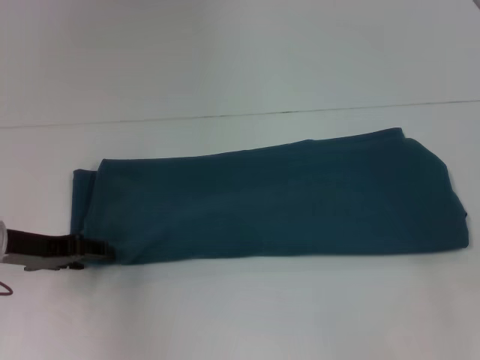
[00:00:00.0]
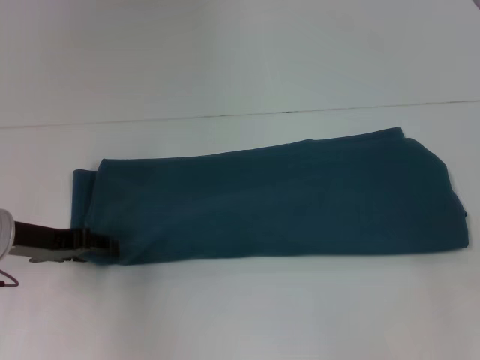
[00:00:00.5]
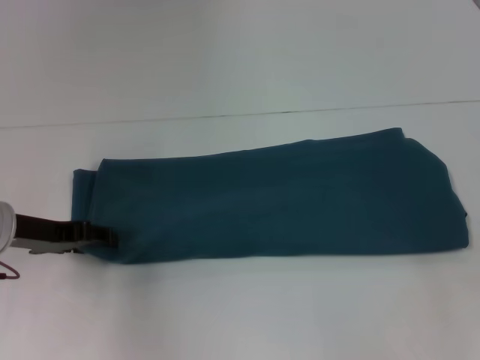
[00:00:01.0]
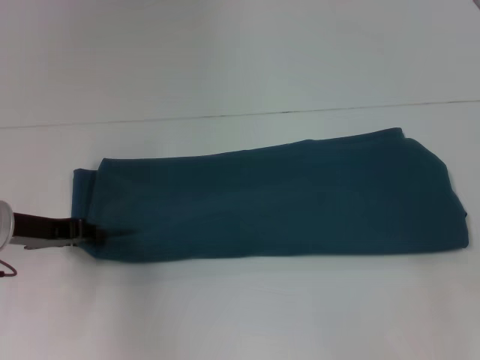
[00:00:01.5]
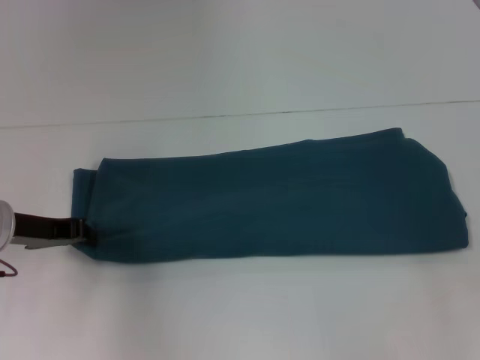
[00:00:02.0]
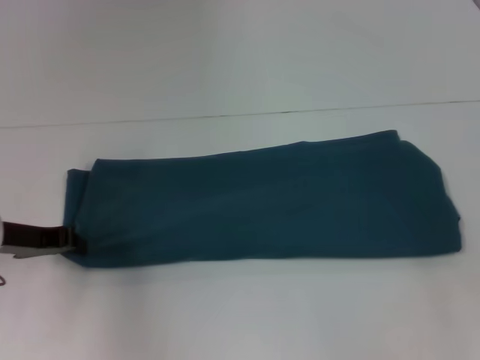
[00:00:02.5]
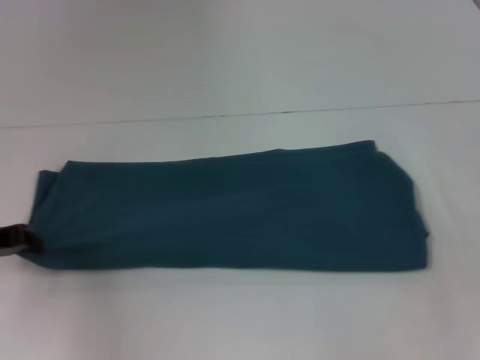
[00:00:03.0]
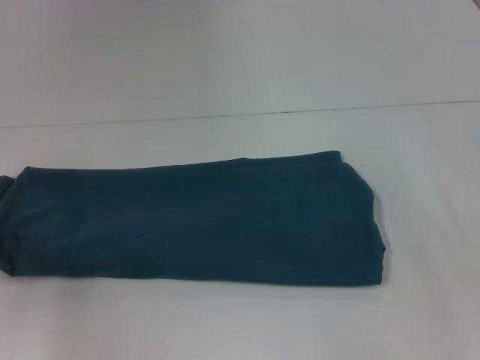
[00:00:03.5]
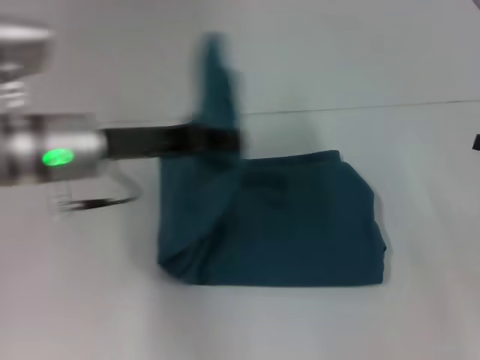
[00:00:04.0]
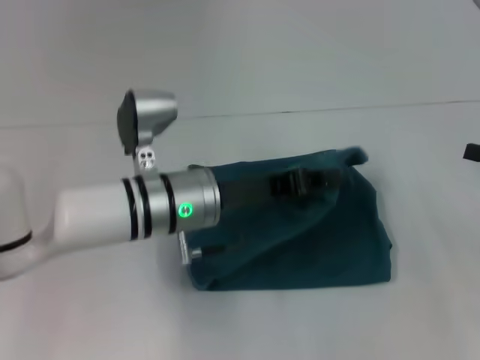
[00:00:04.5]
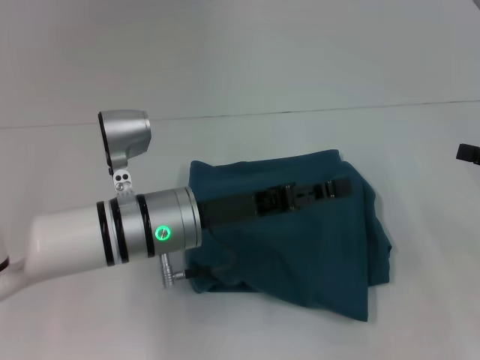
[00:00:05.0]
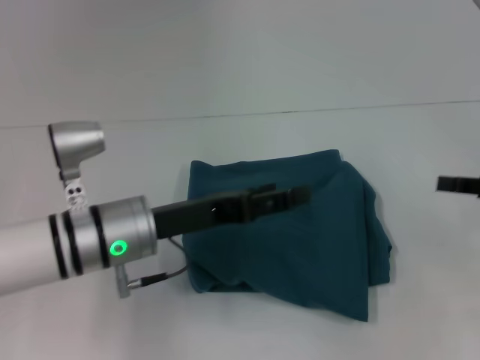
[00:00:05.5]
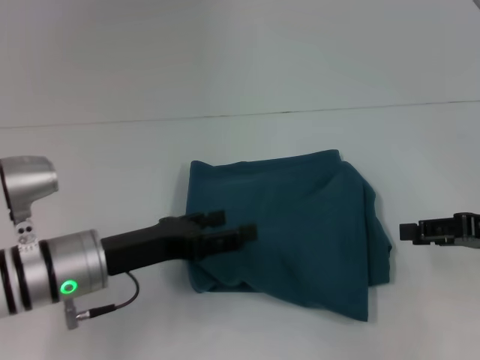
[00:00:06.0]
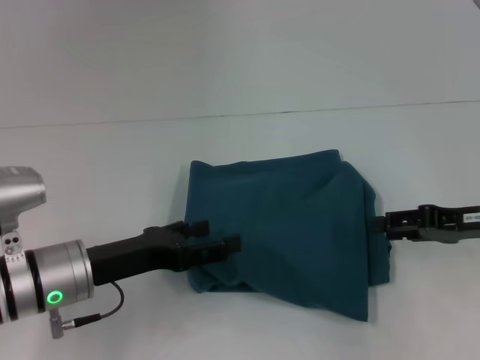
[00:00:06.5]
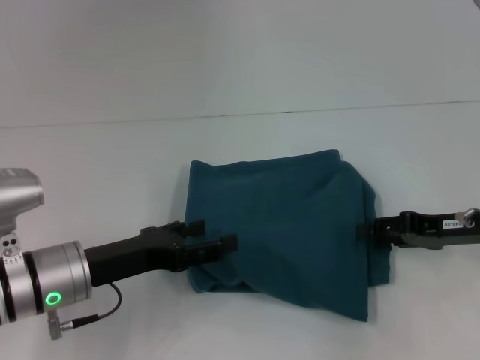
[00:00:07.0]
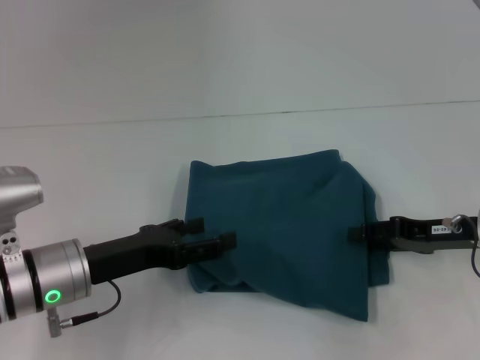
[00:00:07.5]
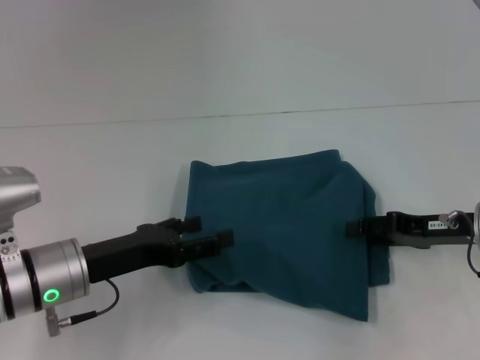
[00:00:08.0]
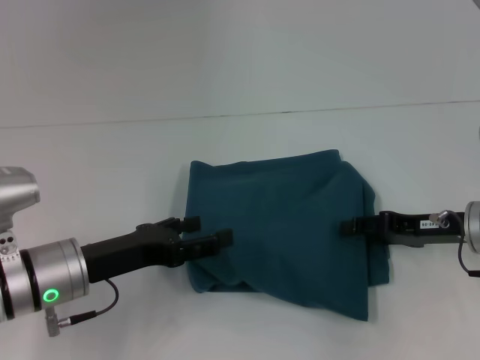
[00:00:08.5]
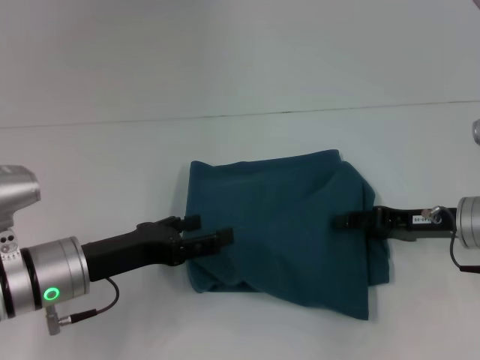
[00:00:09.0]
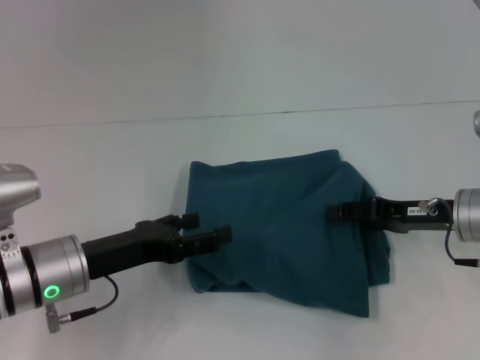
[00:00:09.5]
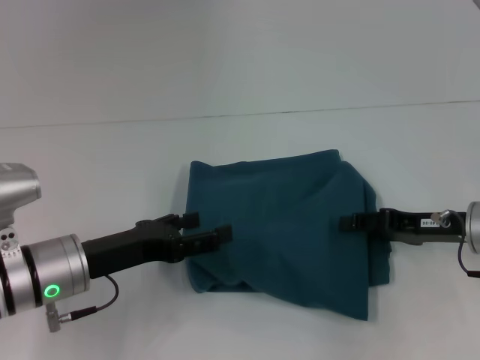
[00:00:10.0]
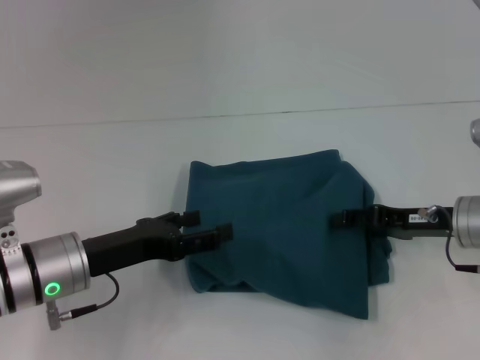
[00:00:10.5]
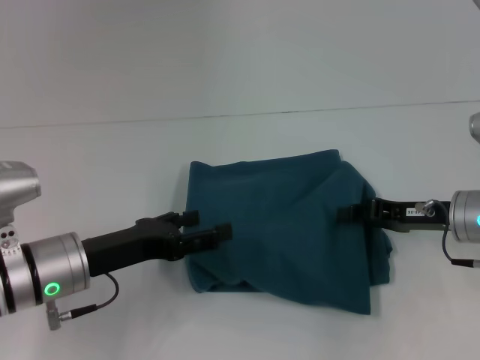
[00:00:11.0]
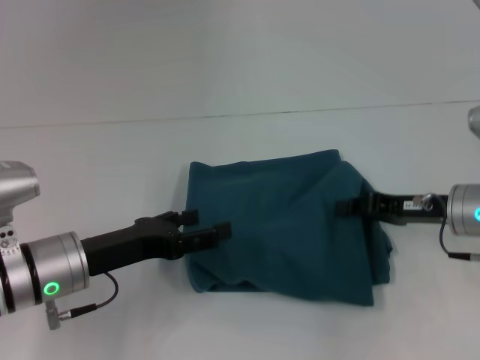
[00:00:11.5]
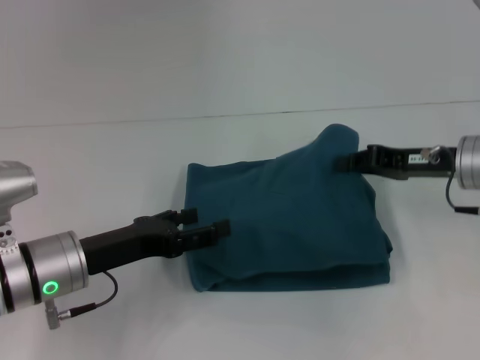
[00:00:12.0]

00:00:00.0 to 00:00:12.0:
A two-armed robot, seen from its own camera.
Step, 00:00:00.0 to 00:00:05.0: Fold the clothes to the left.
00:00:00.0 to 00:00:02.0: The left gripper closes its fingers.
00:00:02.0 to 00:00:04.0: The left gripper heads to the right and upward, covering some 10 cm.
00:00:04.0 to 00:00:06.0: The right gripper shifts by roughly 5 cm, and opens up. The left gripper moves downward and backward, approximately 10 cm, travels to the right and back again, about 10 cm each way, and opens.
00:00:06.0 to 00:00:08.0: The right gripper is displaced to the left by some 5 cm.
00:00:08.0 to 00:00:10.0: There are only small adjustments of the grippers.
00:00:10.0 to 00:00:12.0: The right gripper shifts some 5 cm upward, and closes its fingers.

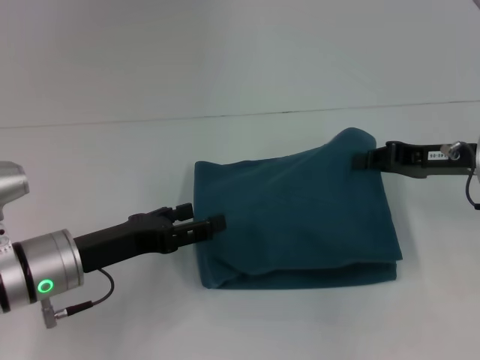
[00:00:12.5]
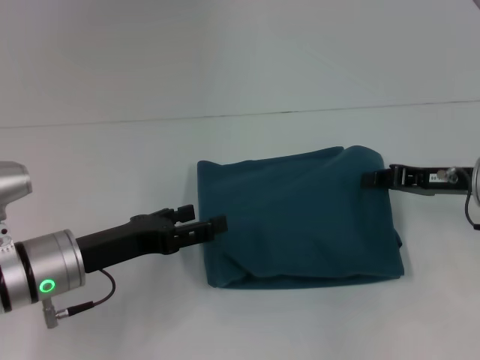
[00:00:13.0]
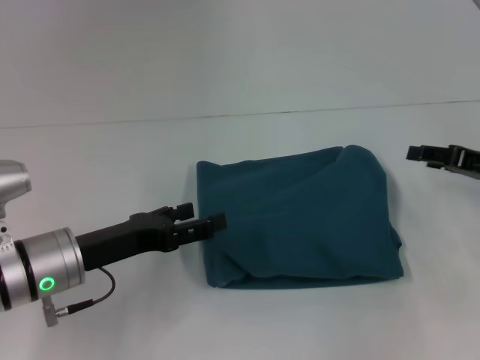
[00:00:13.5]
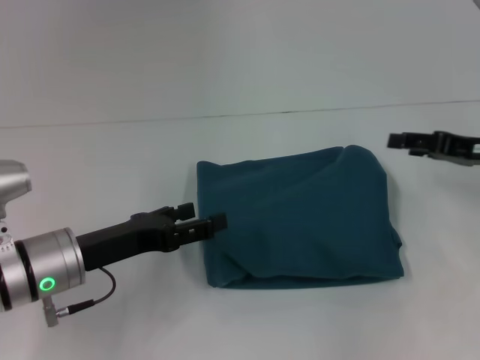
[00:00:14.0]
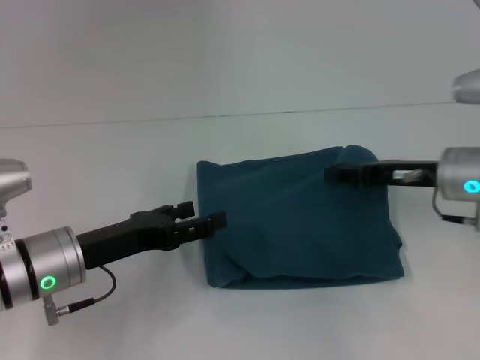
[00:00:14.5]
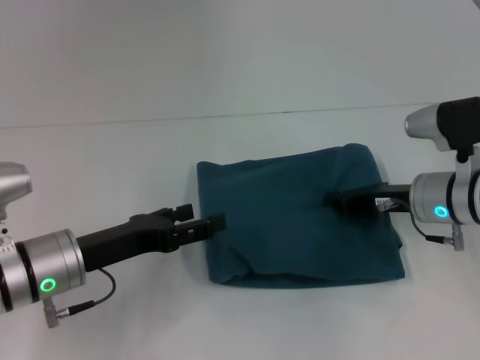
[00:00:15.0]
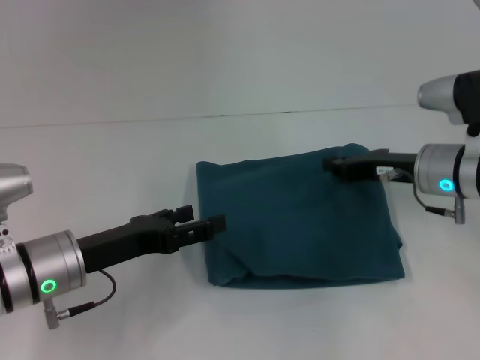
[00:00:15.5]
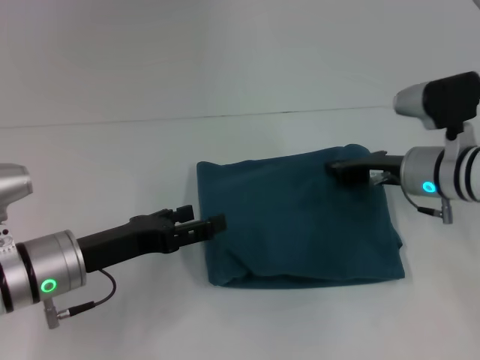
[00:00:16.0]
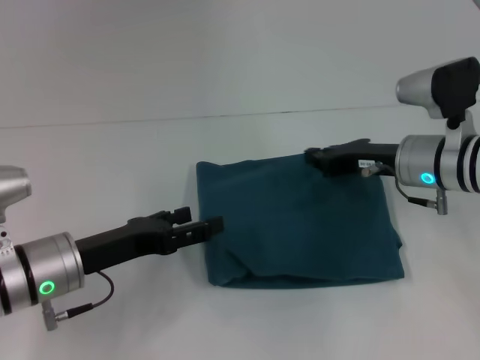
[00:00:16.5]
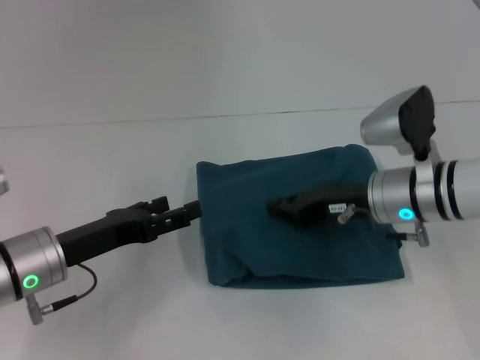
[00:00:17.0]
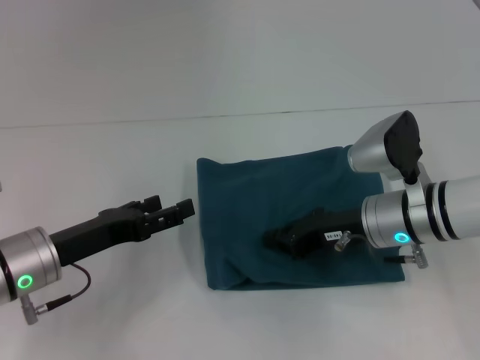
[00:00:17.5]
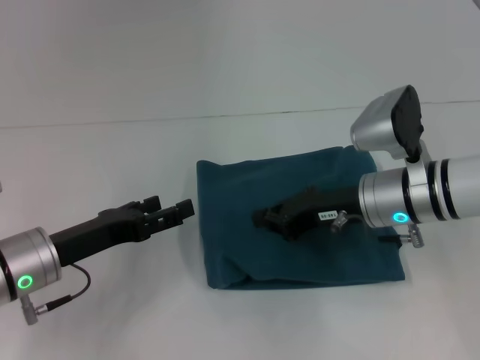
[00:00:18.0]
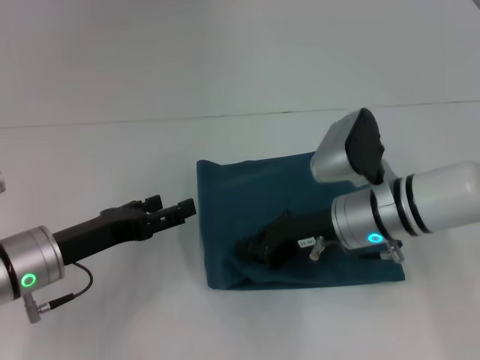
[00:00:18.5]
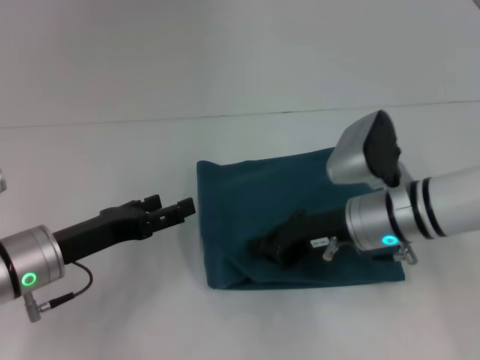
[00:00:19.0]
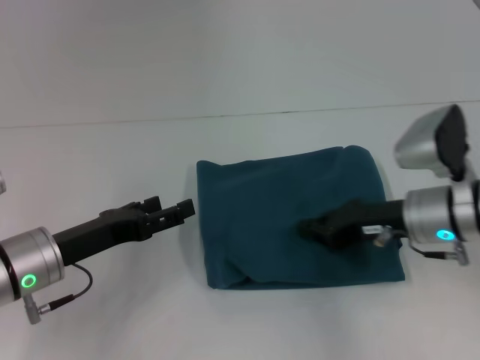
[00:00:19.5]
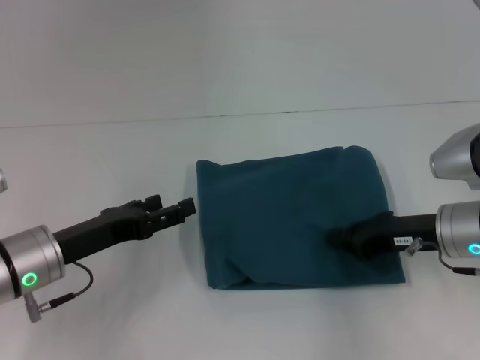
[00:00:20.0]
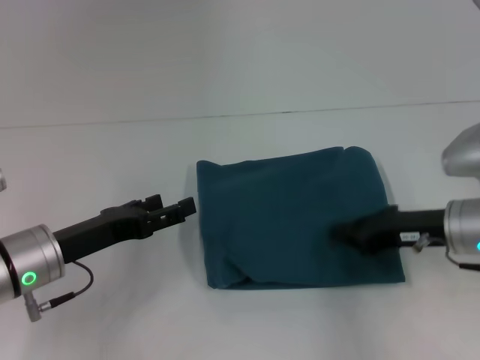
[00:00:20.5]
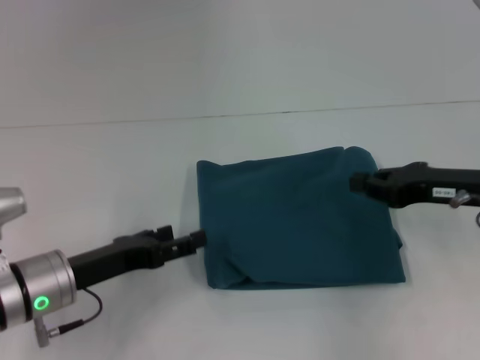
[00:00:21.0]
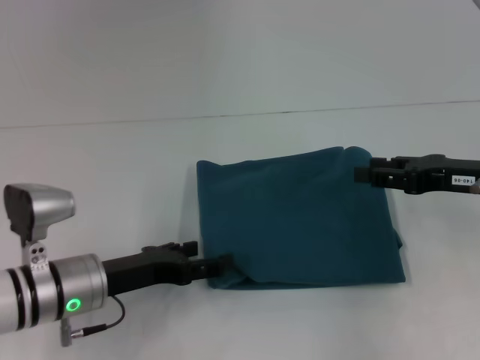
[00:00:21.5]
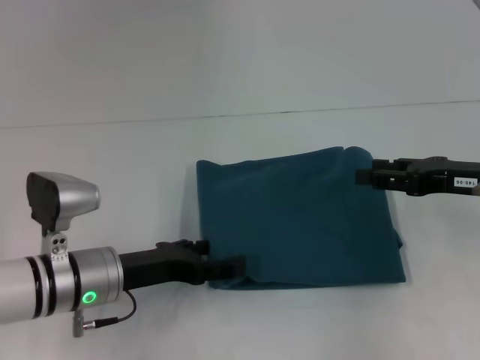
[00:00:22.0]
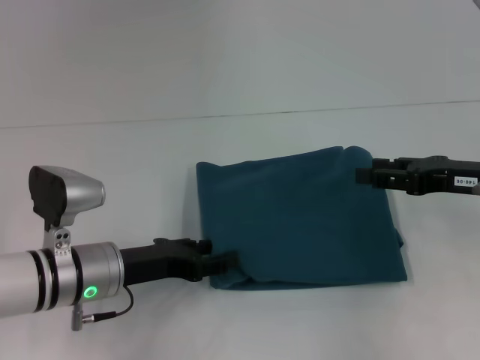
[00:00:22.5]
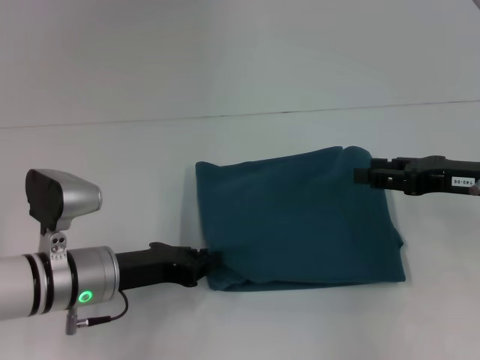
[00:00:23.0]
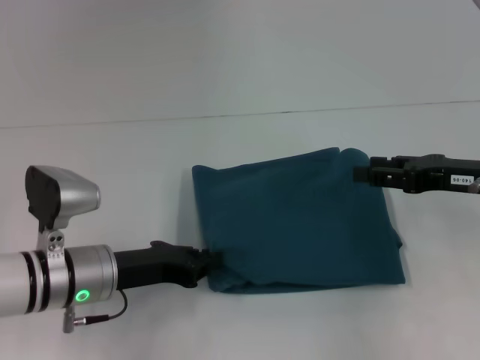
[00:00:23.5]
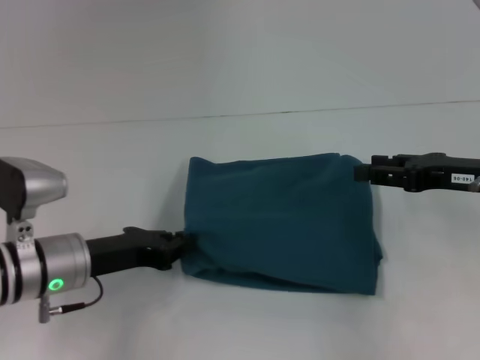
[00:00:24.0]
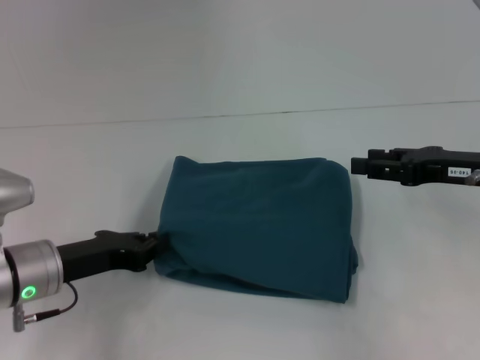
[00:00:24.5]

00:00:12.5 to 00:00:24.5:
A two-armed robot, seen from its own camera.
00:00:12.5 to 00:00:14.5: The right gripper opens.
00:00:14.5 to 00:00:16.5: The right gripper closes up.
00:00:16.5 to 00:00:18.5: The right gripper moves to the left, roughly 5 cm.
00:00:18.5 to 00:00:20.5: The right gripper moves to the right, about 10 cm.
00:00:20.5 to 00:00:22.5: The left gripper is displaced to the right by some 5 cm. The right gripper changes place by about 5 cm, and opens its fingers.
00:00:22.5 to 00:00:24.5: The left gripper goes about 5 cm to the left, and closes.

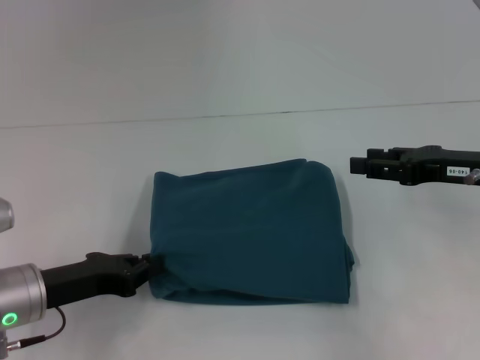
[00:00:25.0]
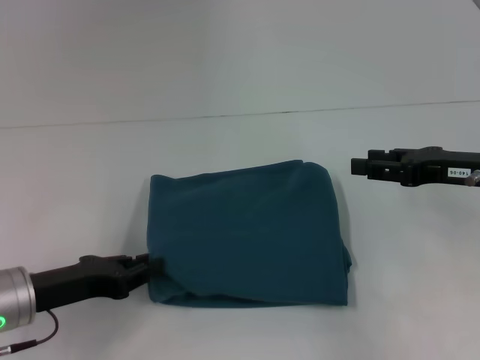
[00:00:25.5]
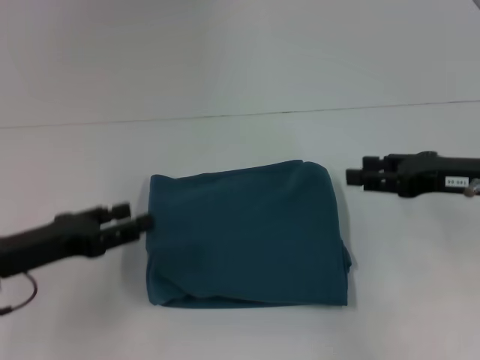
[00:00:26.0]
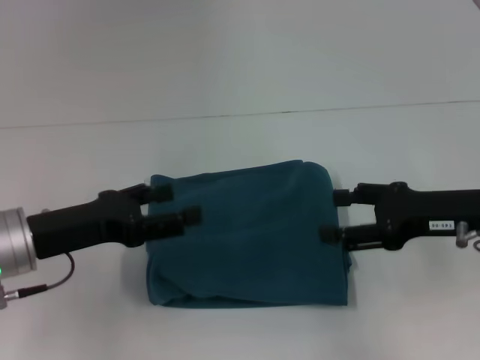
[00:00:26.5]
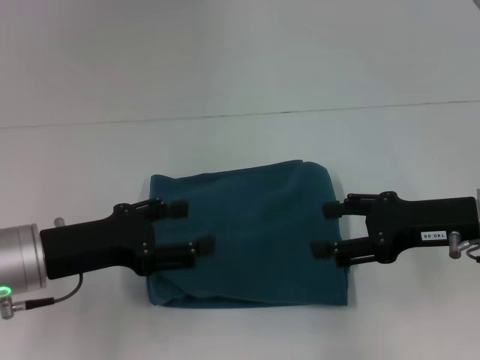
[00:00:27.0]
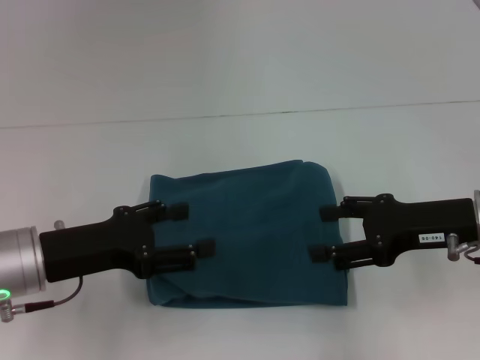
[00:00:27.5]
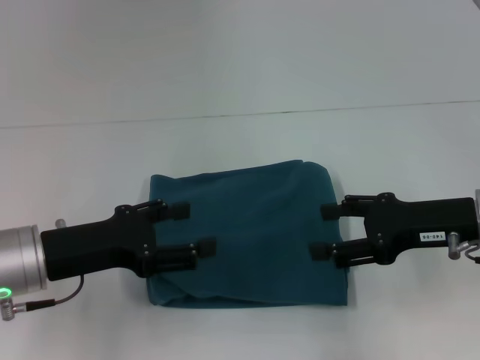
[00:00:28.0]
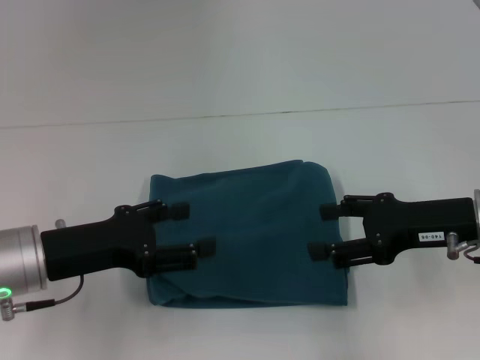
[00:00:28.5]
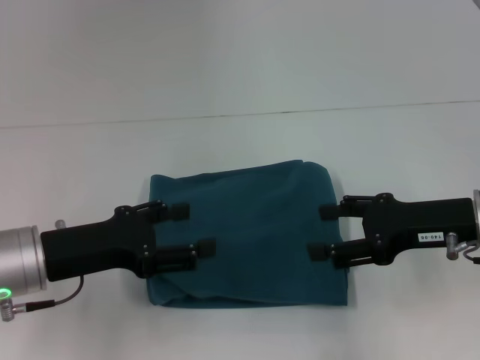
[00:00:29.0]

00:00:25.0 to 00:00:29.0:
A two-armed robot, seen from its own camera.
00:00:25.0 to 00:00:27.0: The left gripper is displaced upward by about 5 cm, and opens up. Meanwhile the right gripper opens.
00:00:27.0 to 00:00:29.0: The two grippers keep their place.
